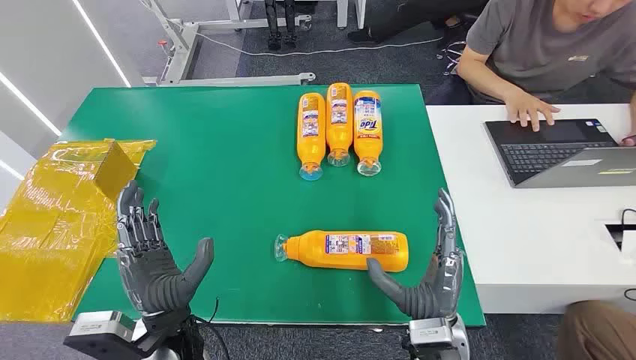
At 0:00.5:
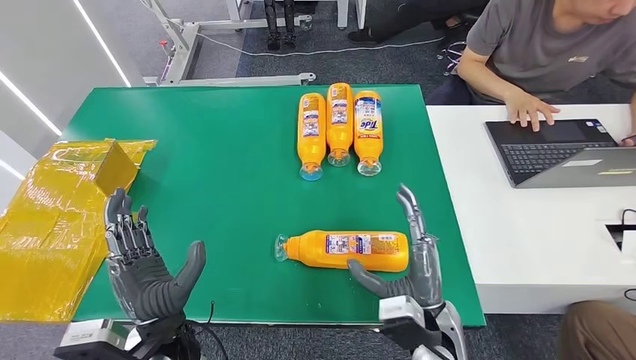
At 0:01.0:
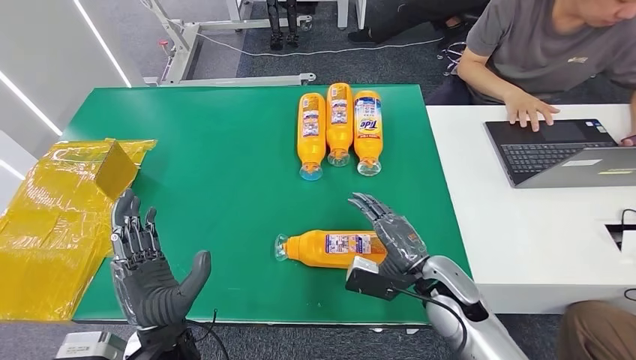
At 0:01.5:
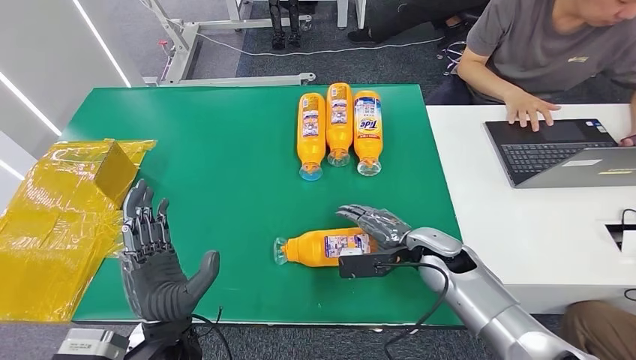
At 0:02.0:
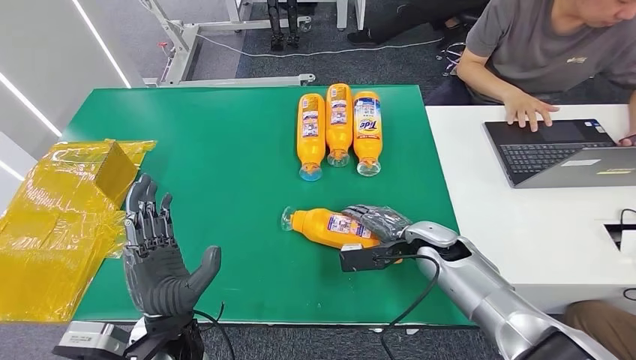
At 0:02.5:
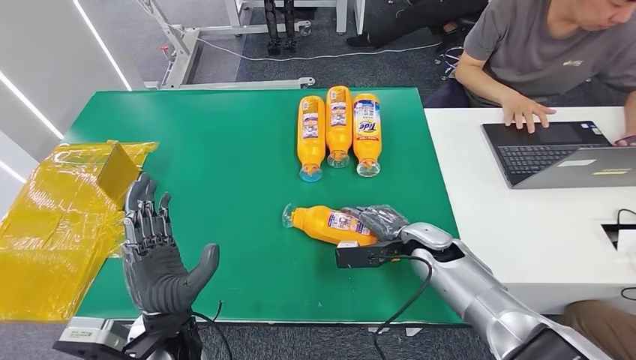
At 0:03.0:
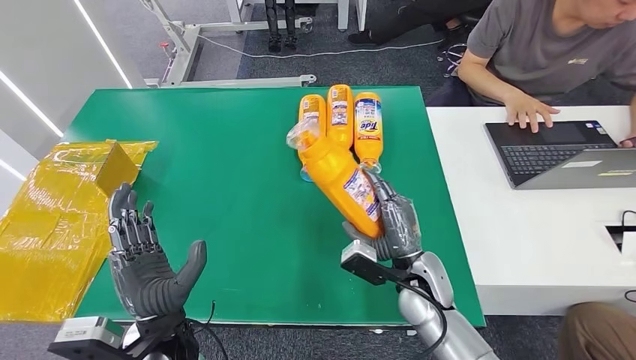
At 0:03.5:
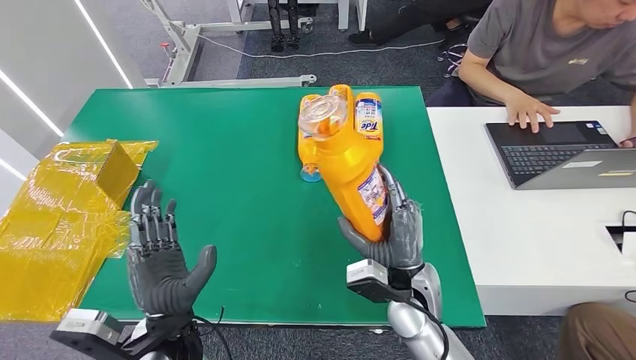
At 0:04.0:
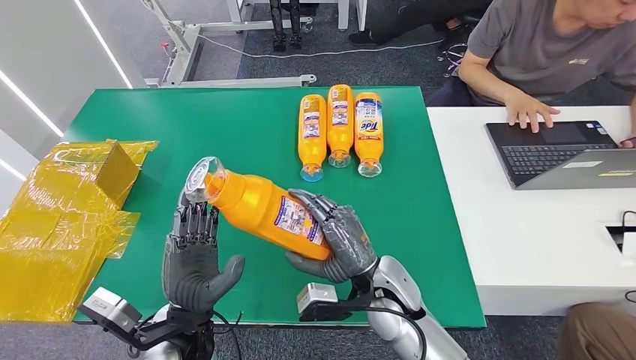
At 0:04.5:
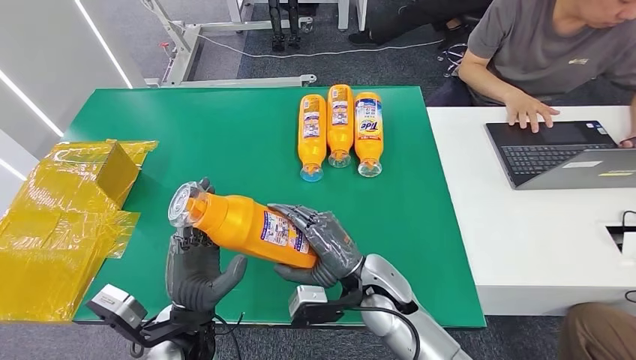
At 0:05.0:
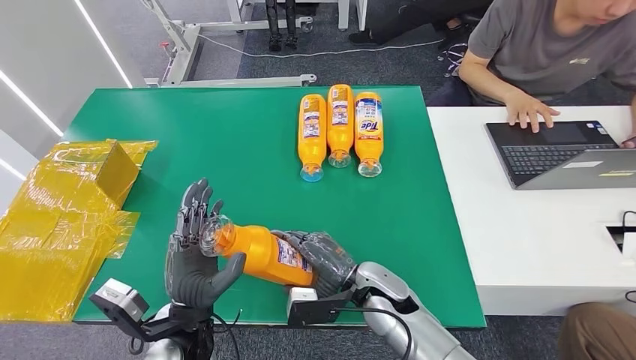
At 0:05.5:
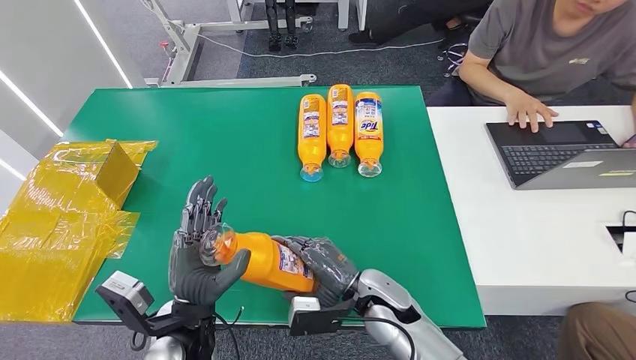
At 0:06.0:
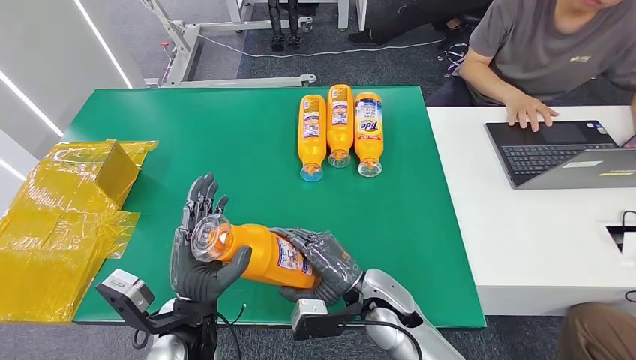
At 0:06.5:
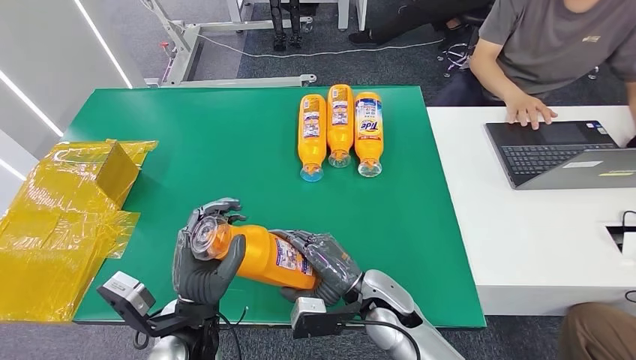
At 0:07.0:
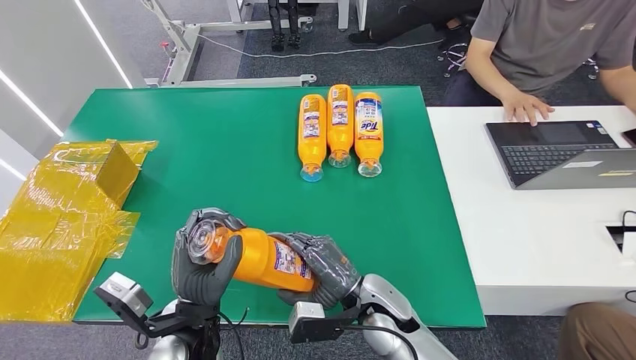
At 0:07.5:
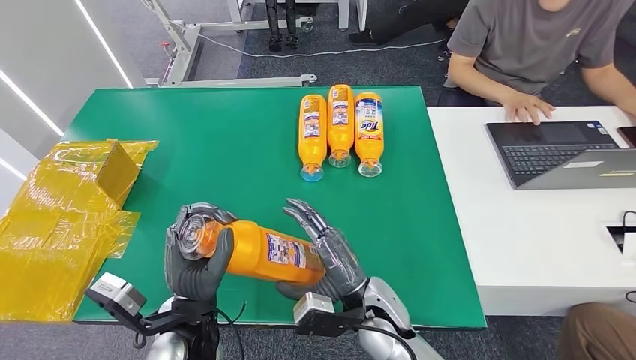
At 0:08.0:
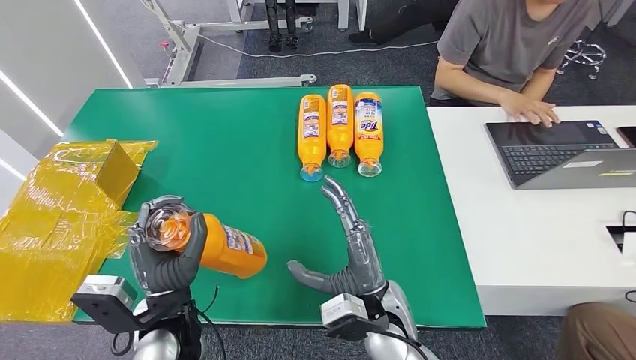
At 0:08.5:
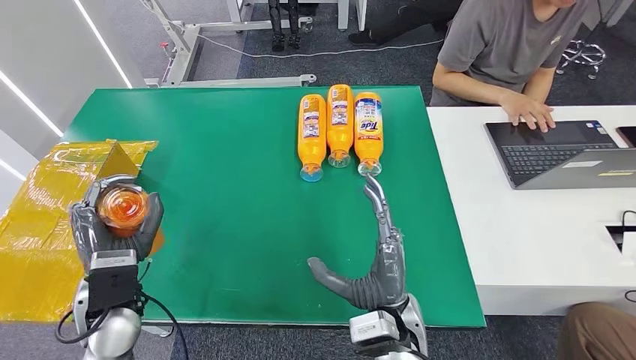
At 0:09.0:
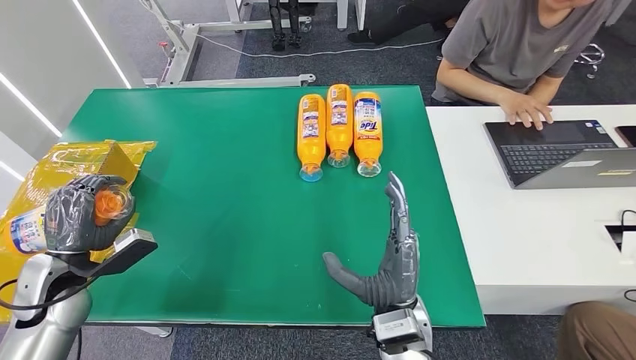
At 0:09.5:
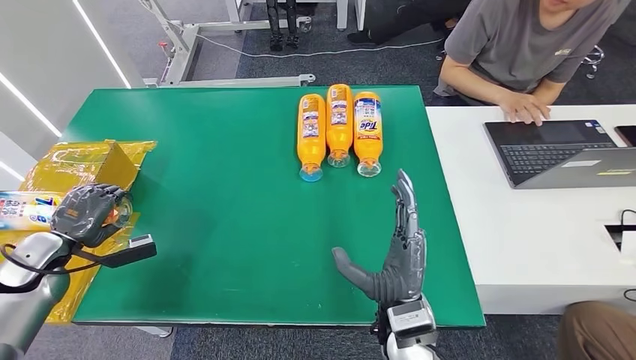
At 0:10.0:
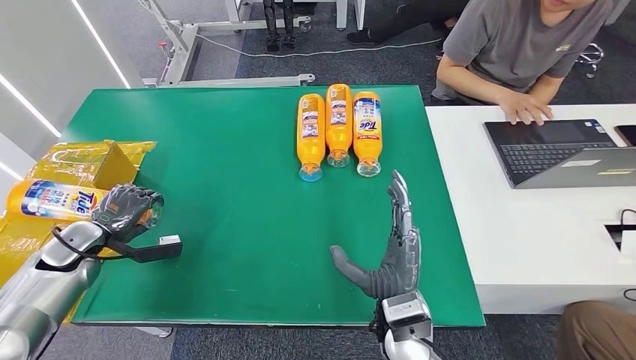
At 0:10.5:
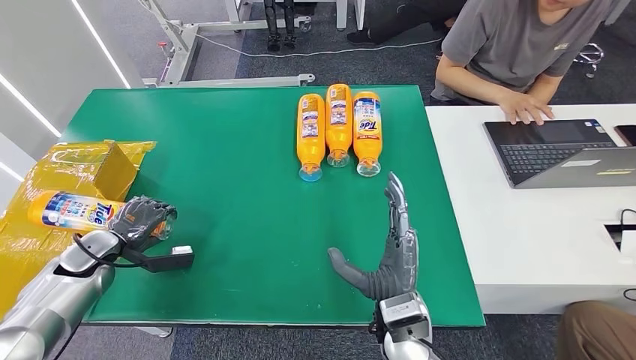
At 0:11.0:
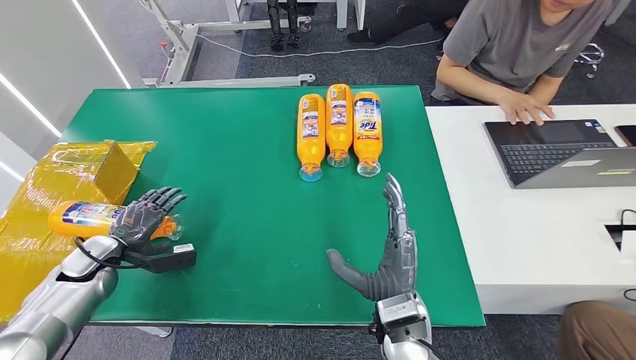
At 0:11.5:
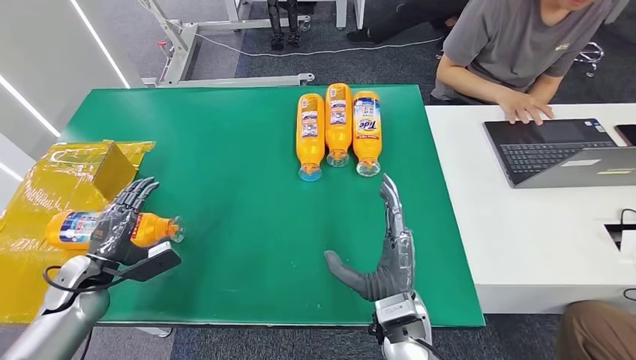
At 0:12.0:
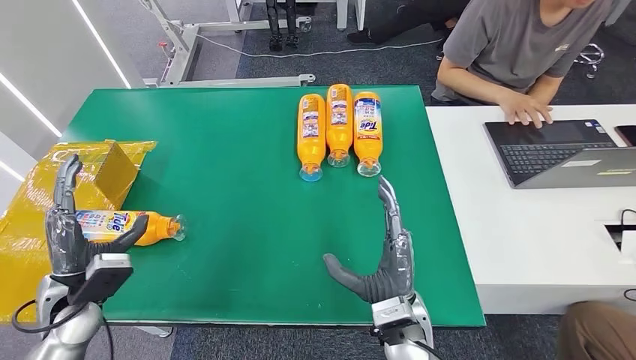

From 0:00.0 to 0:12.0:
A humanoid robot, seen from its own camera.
Step, from 0:00.0 to 0:04.0: Pick up the bottle from the table.
Step, from 0:04.5 to 0:12.0: Turn the bottle to the front side.
From 0:10.0 to 0:12.0: The left hand travels backward and to the right by about 15 cm.

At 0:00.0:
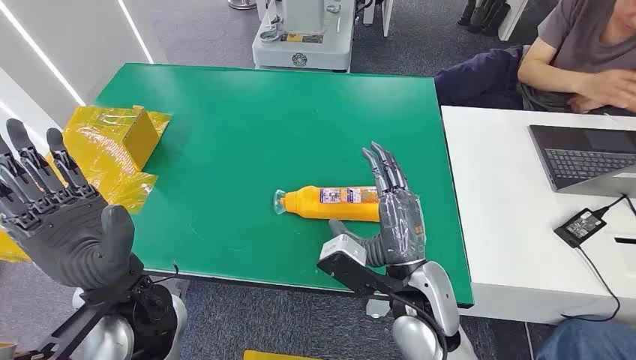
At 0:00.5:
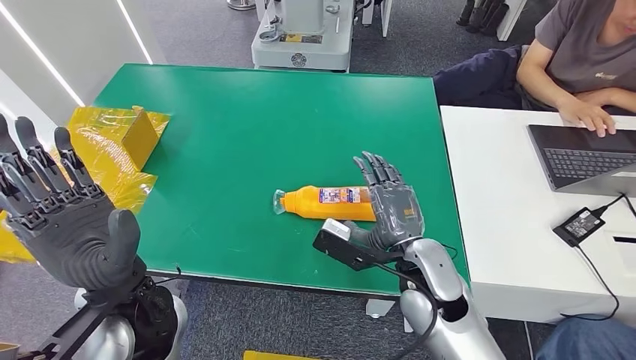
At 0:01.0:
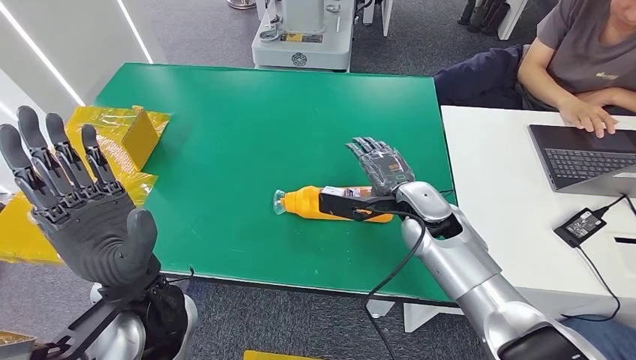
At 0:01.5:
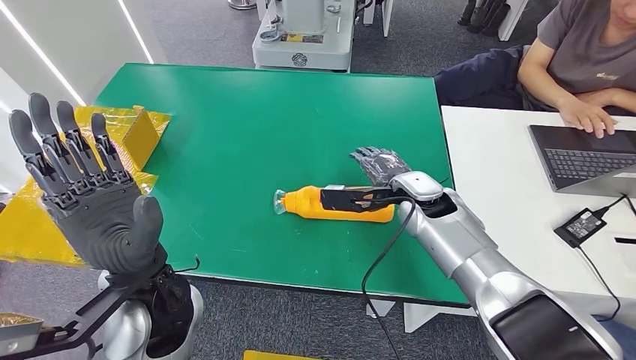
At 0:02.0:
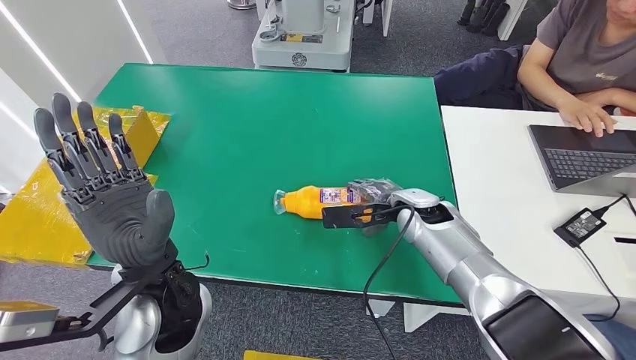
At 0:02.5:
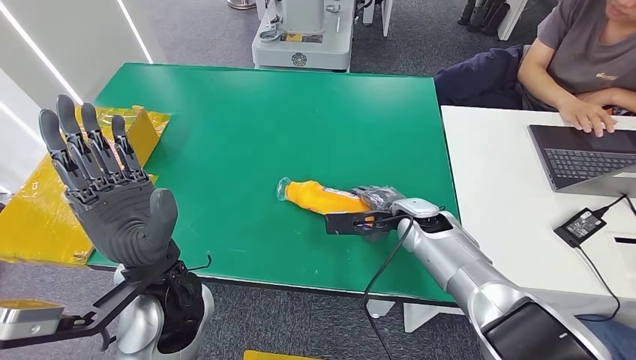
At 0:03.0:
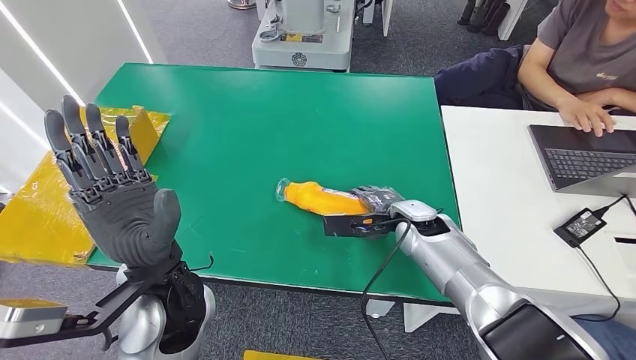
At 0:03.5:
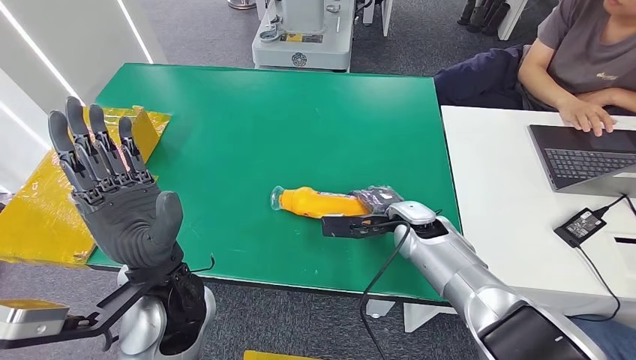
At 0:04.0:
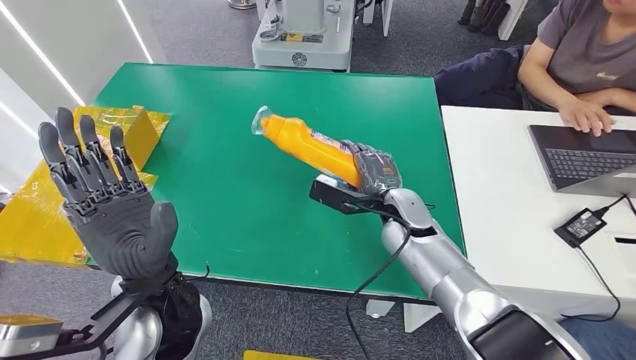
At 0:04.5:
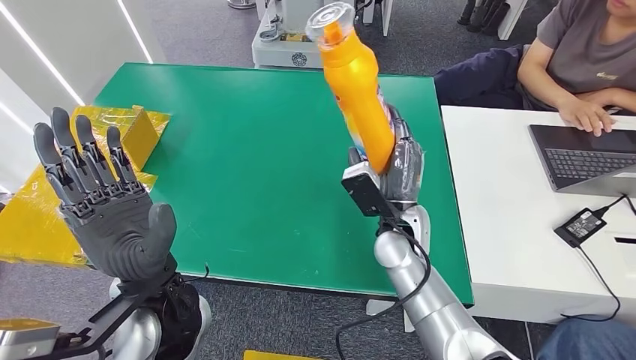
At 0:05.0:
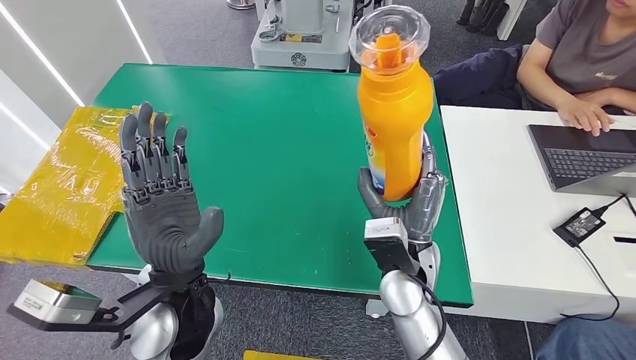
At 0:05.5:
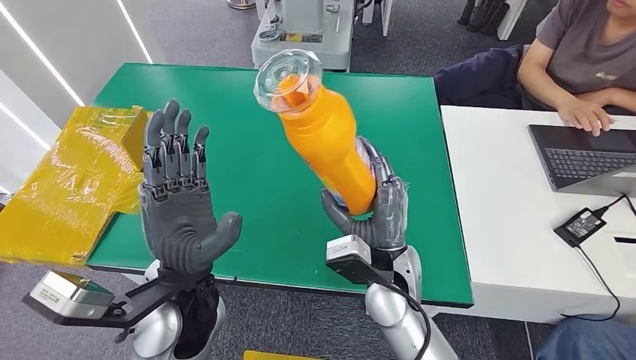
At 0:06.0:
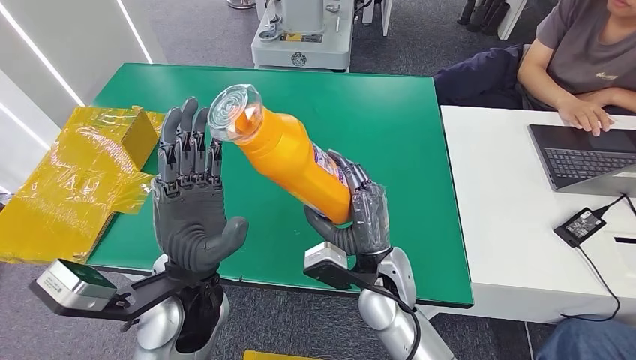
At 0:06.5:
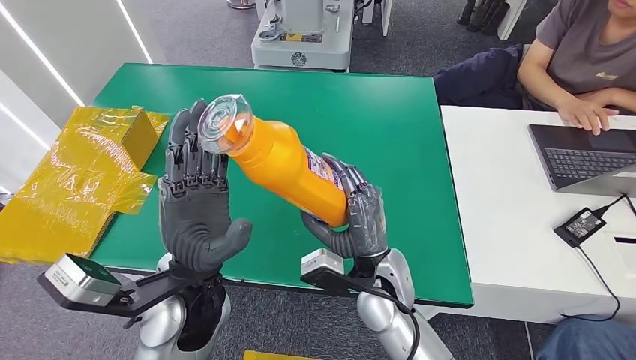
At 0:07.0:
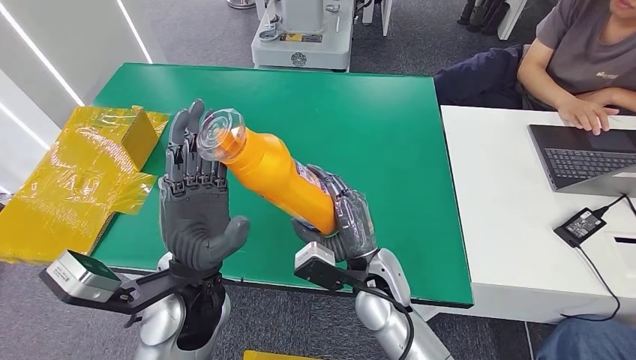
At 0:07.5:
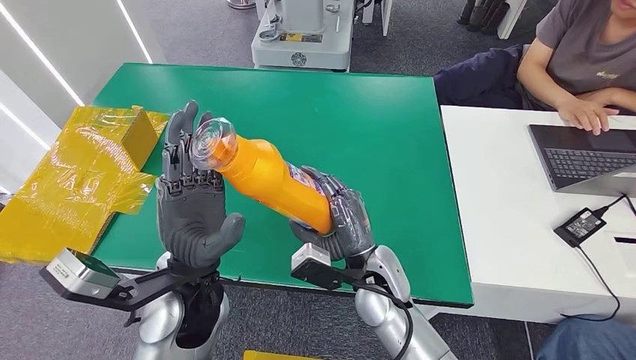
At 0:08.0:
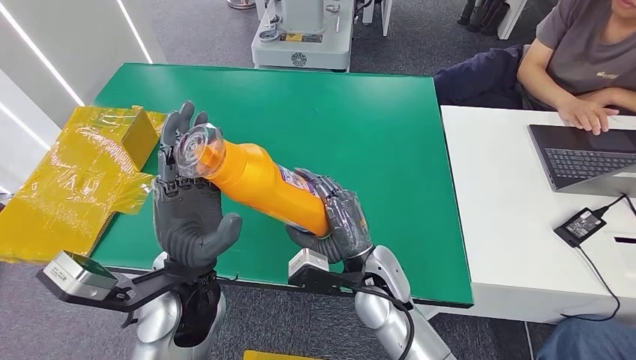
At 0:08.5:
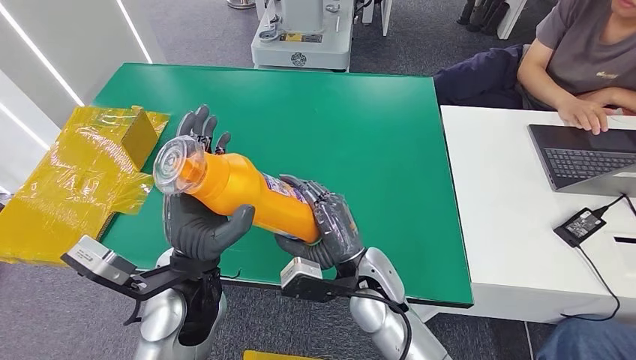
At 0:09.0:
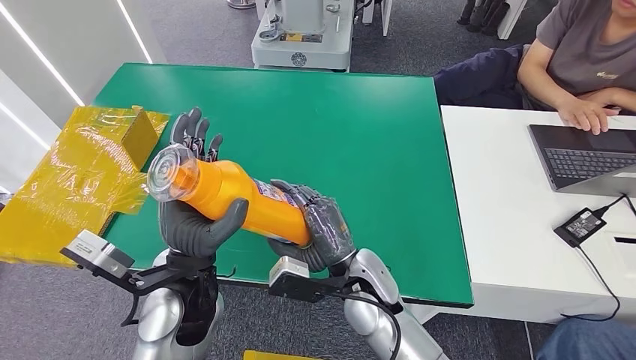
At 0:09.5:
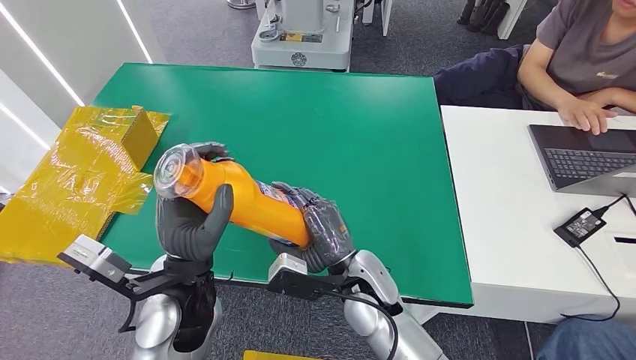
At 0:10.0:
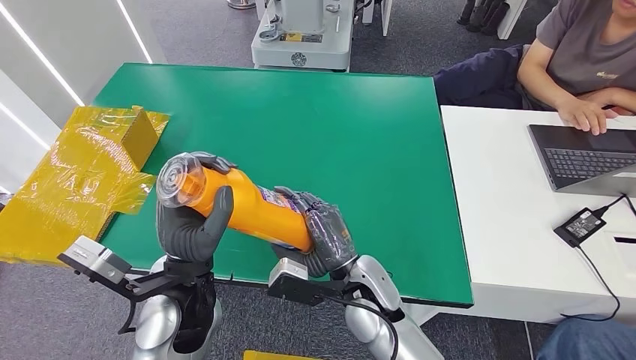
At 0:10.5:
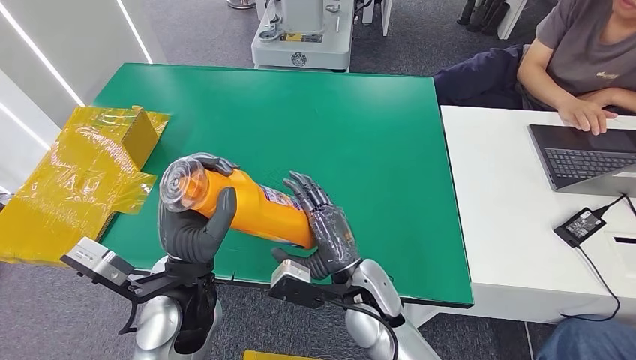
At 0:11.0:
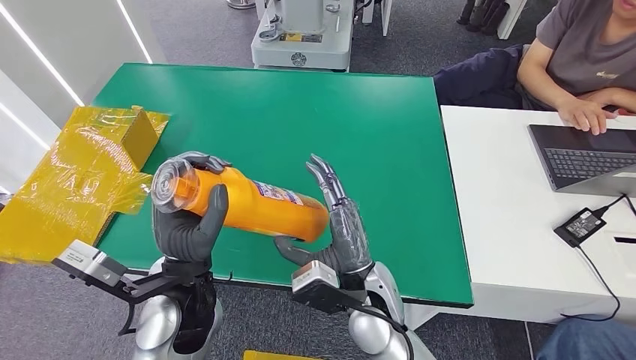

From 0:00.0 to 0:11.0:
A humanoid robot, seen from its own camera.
Step, from 0:00.0 to 0:04.0: Pick up the bottle from the table.
From 0:02.0 to 0:03.5: The hands stay close to where they were, moving slightly.
From 0:07.5 to 0:11.0: There are only small adjustments of the hands.
